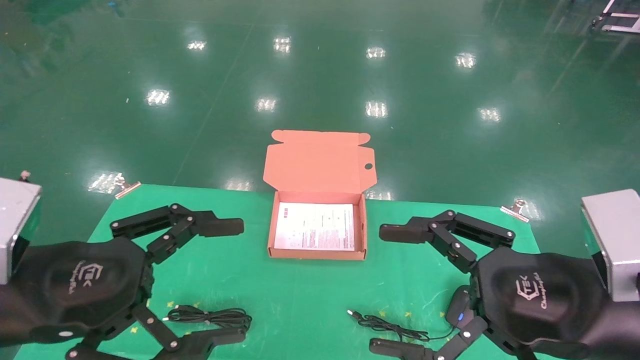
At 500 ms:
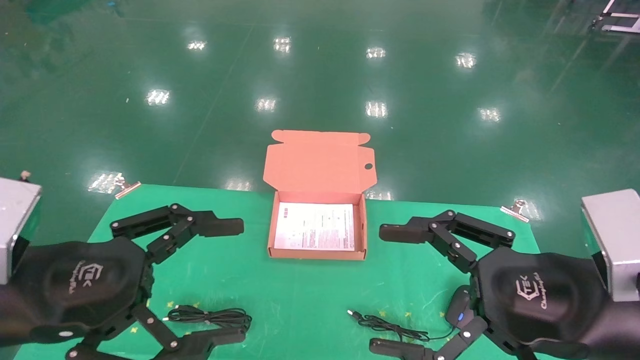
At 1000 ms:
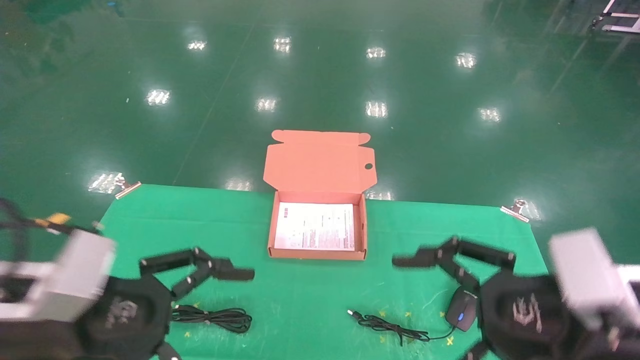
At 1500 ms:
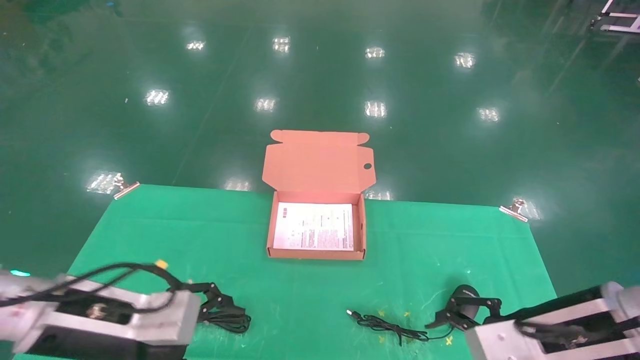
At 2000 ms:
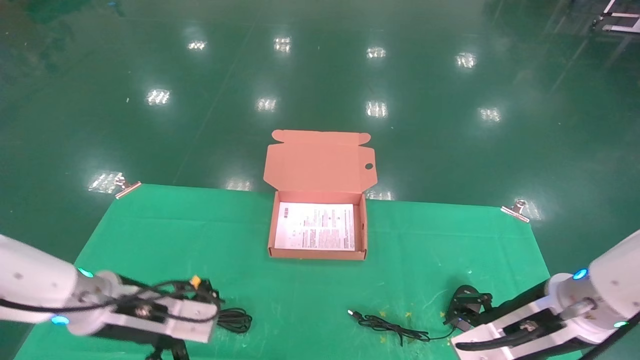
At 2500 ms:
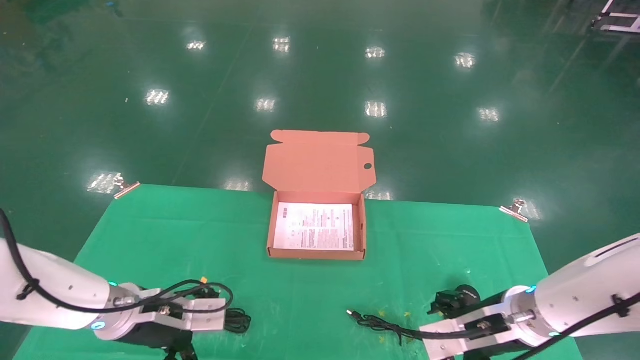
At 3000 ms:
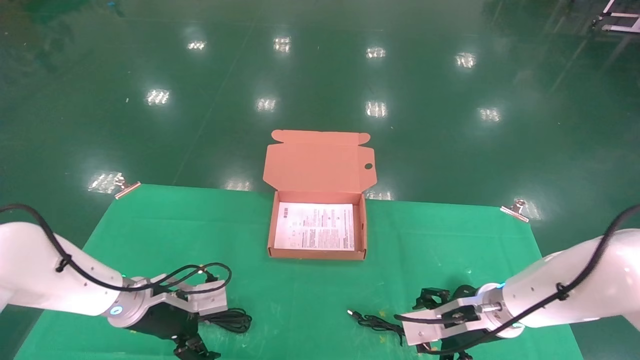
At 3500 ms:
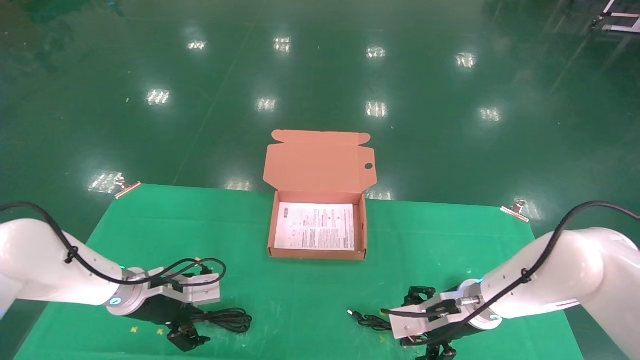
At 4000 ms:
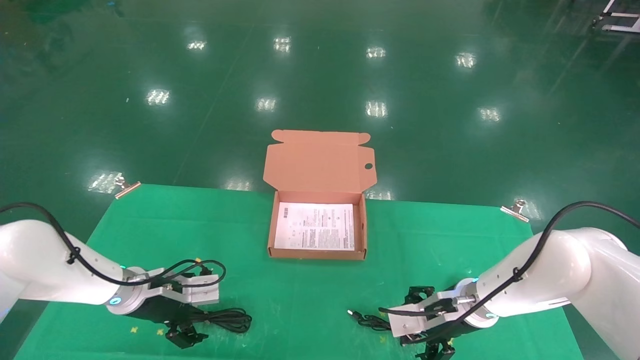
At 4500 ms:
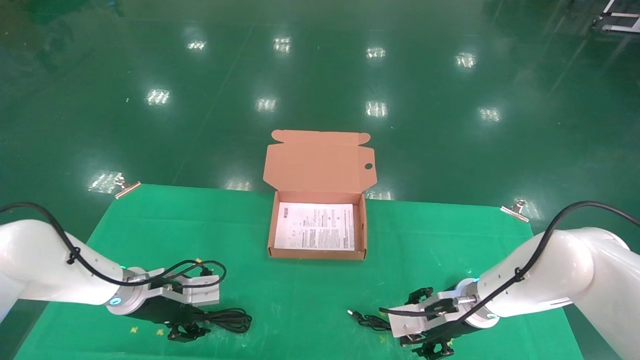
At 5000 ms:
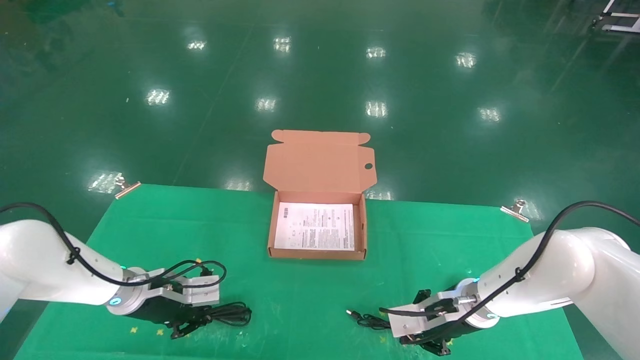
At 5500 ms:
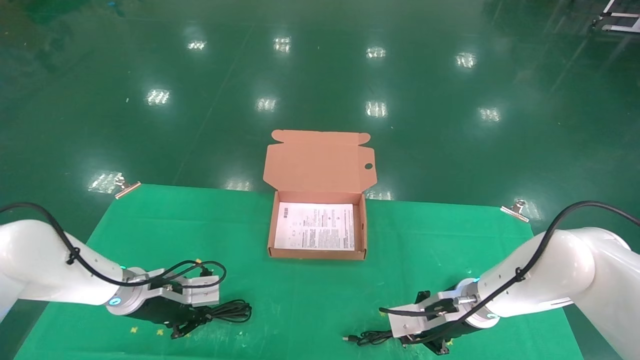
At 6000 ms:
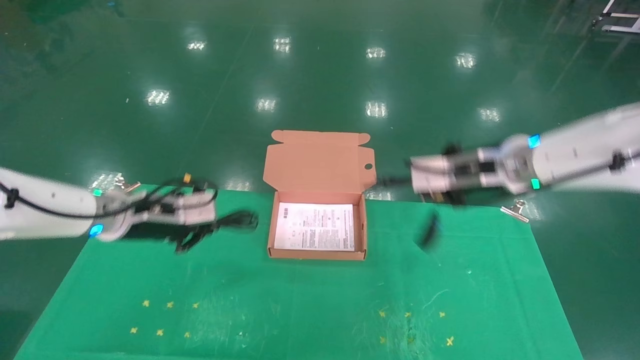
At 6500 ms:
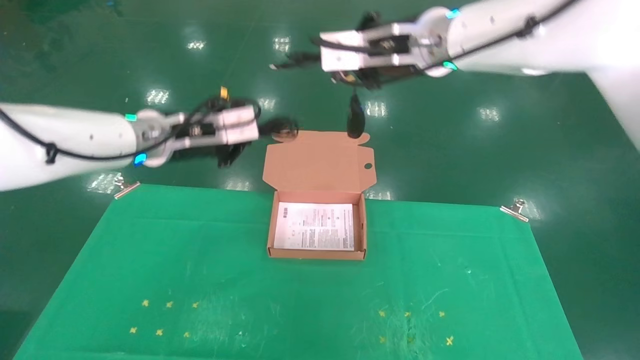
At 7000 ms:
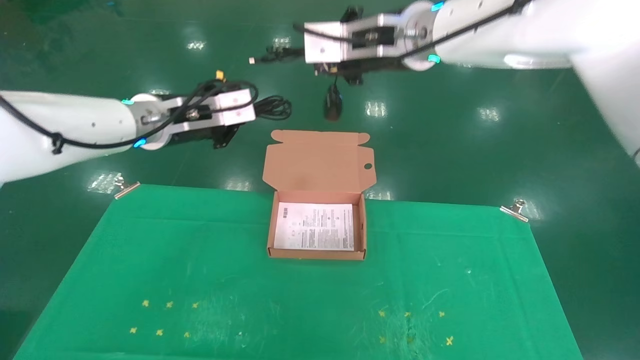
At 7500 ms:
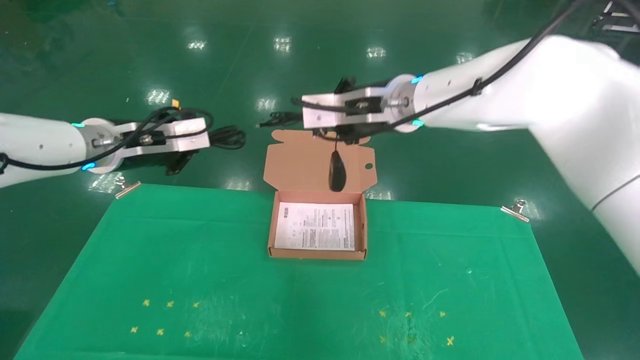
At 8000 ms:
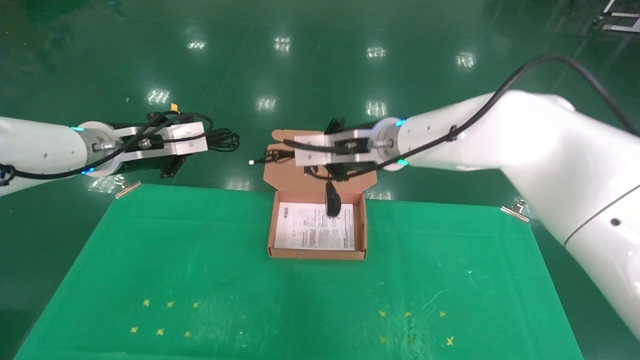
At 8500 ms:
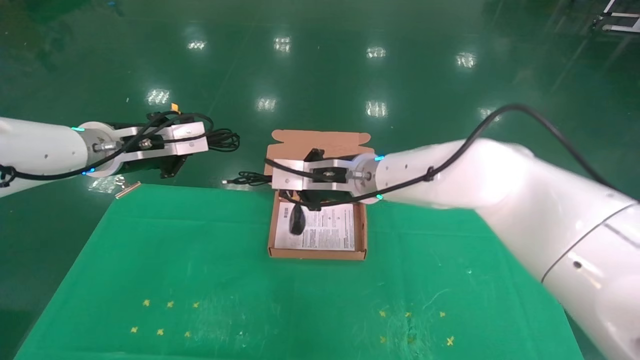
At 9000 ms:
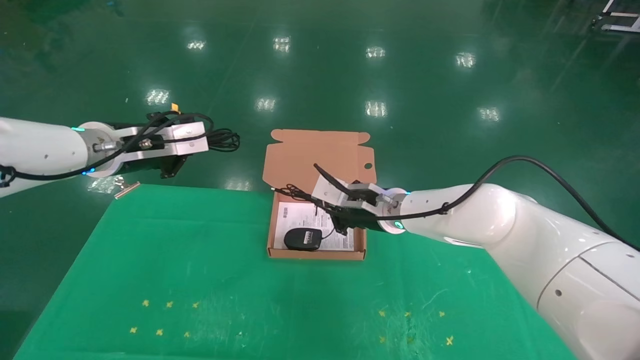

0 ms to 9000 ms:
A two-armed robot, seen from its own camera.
Task of the whole recording: grasp data cable left put into box grasp mouse right put into box.
Step, 1000 ms to 6000 ms: Grab and pick up both the mouse and power cord from the accessory packaging area at the same time.
0 ms to 2000 ms: Both grippers travel together forward and downward, approximately 15 cm.
2000 ms to 4500 ms: The two grippers go some 15 cm forward and downward.
4500 ms to 7000 ms: The grippers both shift upward by about 30 cm. The right gripper closes up, while the left gripper closes up.
7000 ms to 9000 ms: The right gripper heads downward, covering some 25 cm; the left gripper heads to the left, covering roughly 5 cm.

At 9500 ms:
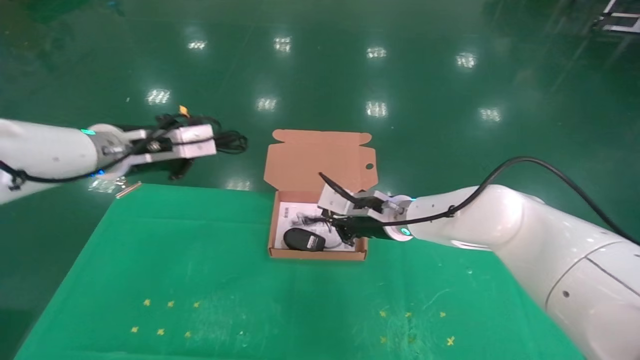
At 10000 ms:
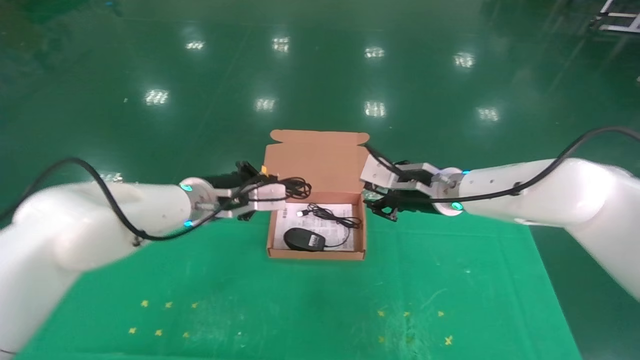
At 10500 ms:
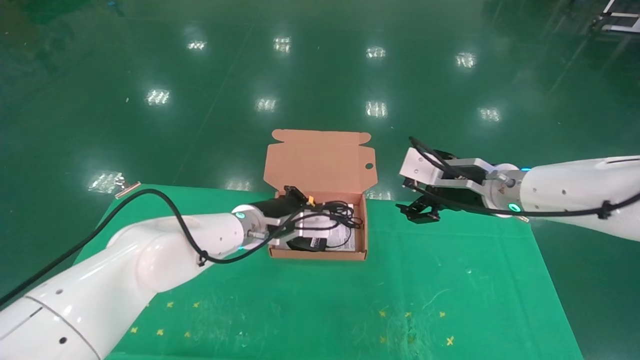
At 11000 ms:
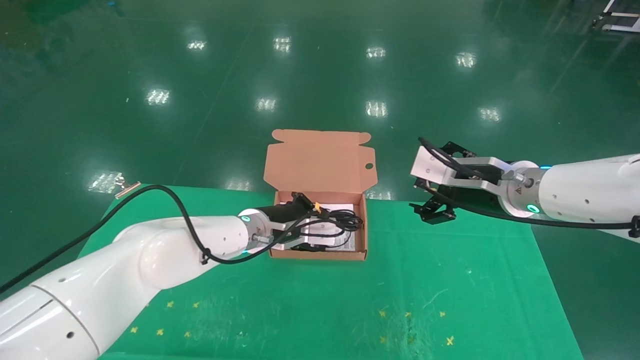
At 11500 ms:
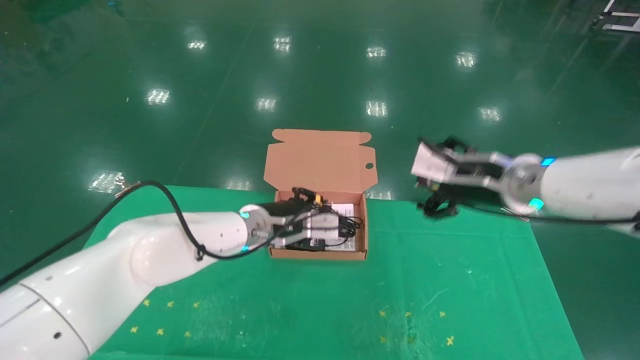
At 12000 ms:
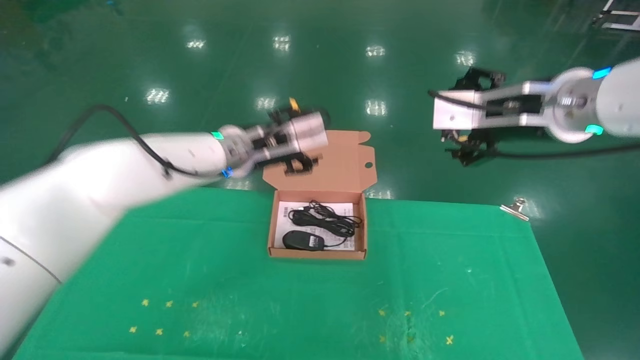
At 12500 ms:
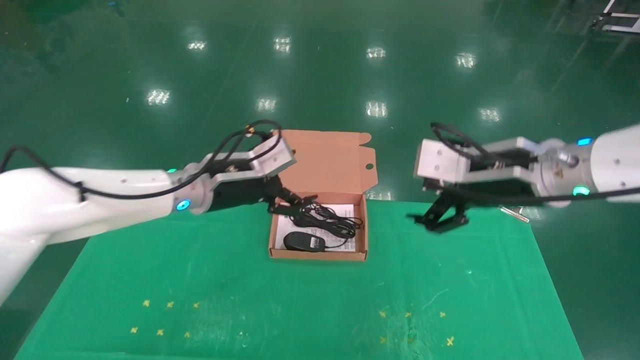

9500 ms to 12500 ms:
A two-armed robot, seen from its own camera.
Task of the whole recording: grasp data cable left put into box grasp mouse right put into box.
Step, 9500 ms to 11500 ms: Place the mouse and power cord into the box.
9500 ms to 11000 ms: The left gripper goes about 20 cm to the right and downward. The right gripper travels to the right, backward and upward by about 15 cm, and opens up.
11000 ms to 12500 ms: The left gripper shifts roughly 10 cm upward and to the left, and opens up; the right gripper heads backward, covering approximately 5 cm, and goes upward and returns, some 10 cm each way.
